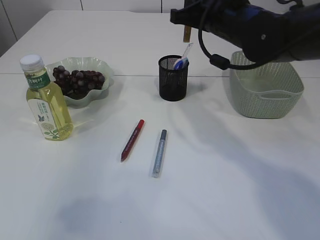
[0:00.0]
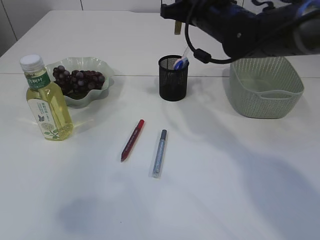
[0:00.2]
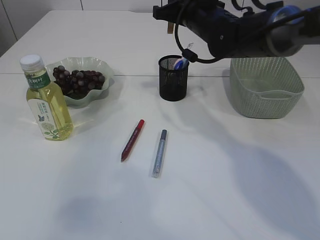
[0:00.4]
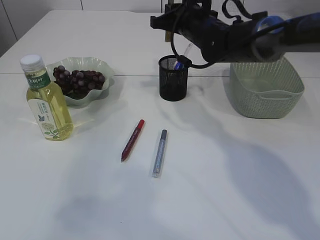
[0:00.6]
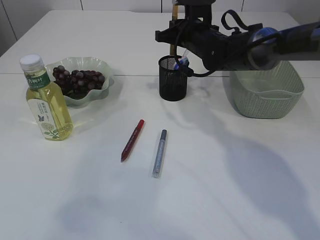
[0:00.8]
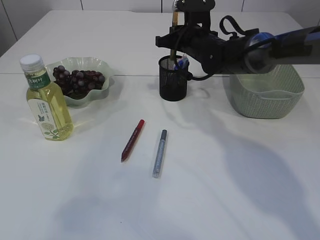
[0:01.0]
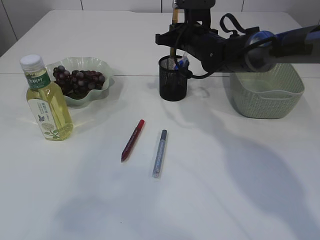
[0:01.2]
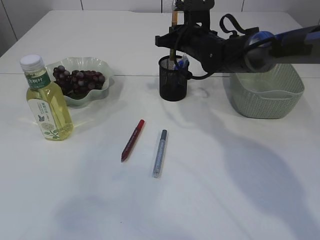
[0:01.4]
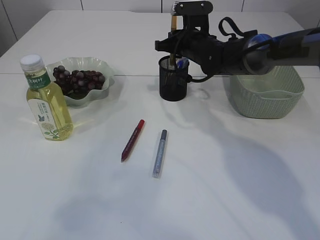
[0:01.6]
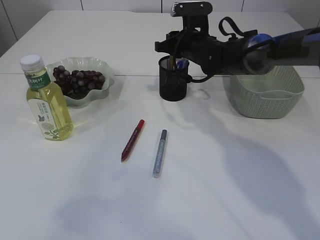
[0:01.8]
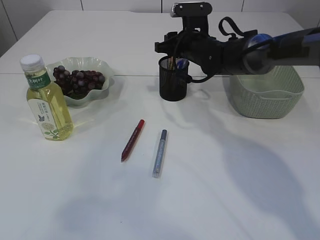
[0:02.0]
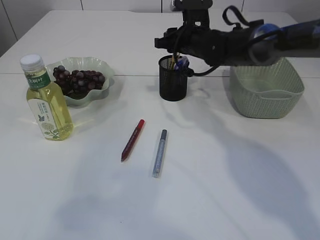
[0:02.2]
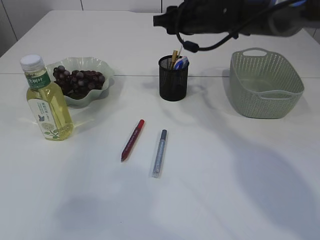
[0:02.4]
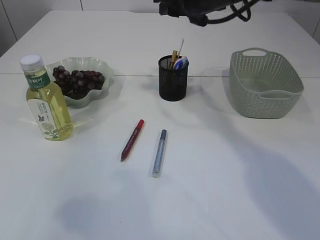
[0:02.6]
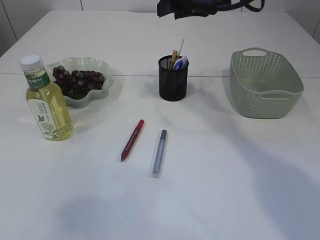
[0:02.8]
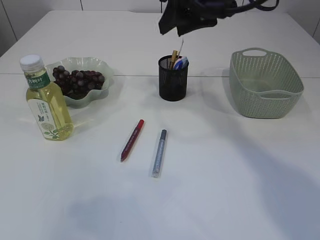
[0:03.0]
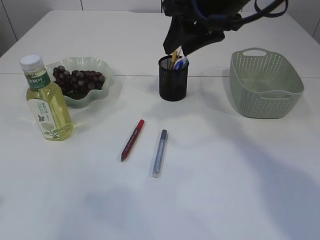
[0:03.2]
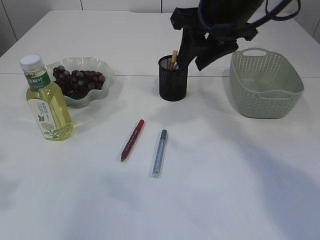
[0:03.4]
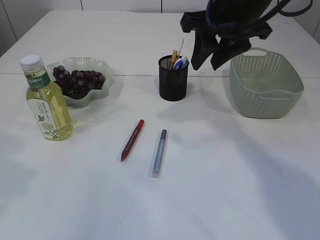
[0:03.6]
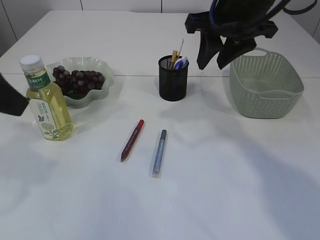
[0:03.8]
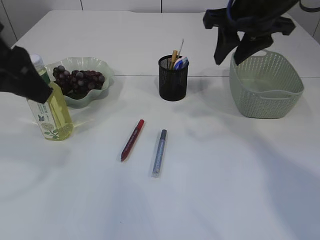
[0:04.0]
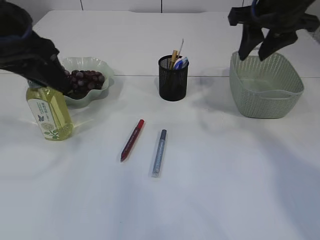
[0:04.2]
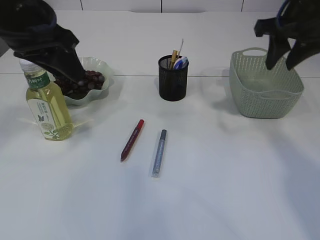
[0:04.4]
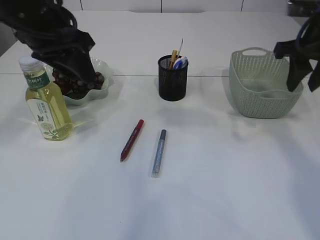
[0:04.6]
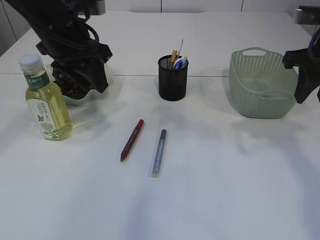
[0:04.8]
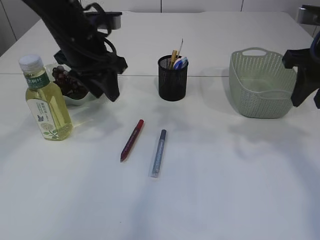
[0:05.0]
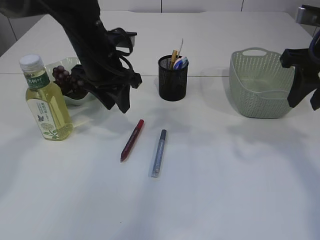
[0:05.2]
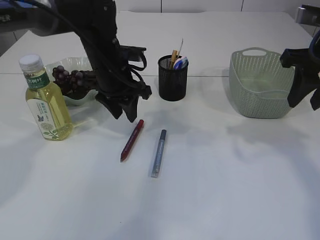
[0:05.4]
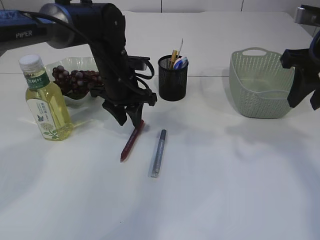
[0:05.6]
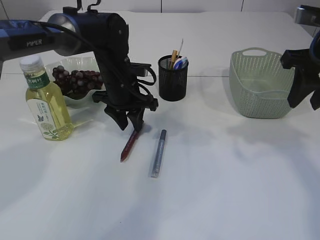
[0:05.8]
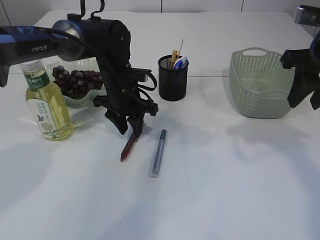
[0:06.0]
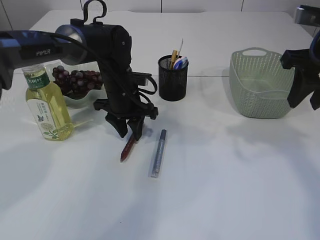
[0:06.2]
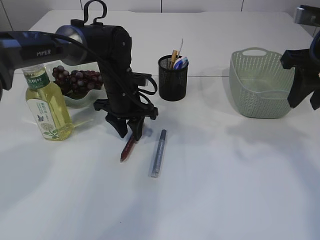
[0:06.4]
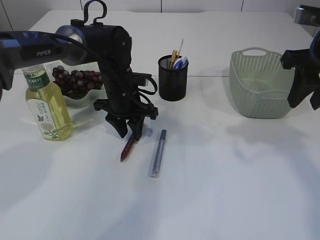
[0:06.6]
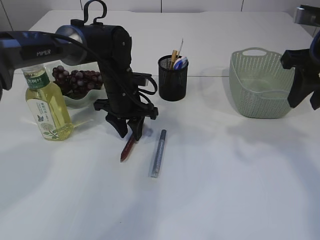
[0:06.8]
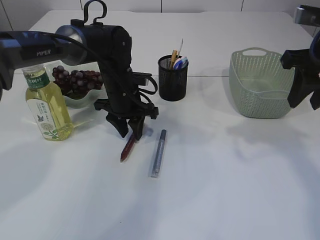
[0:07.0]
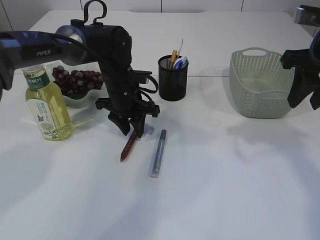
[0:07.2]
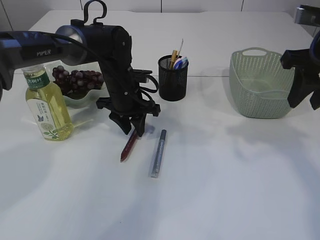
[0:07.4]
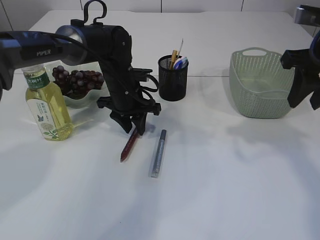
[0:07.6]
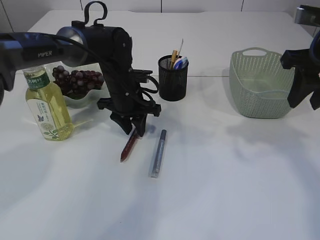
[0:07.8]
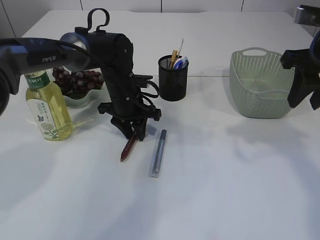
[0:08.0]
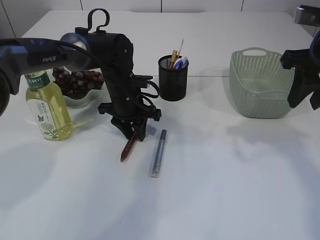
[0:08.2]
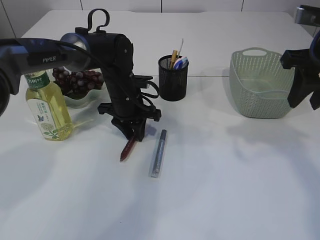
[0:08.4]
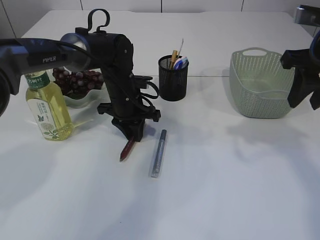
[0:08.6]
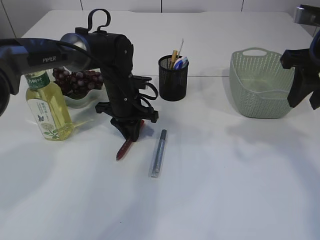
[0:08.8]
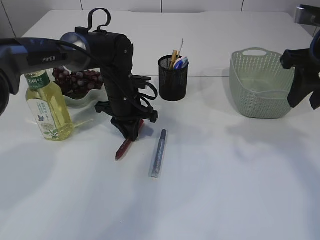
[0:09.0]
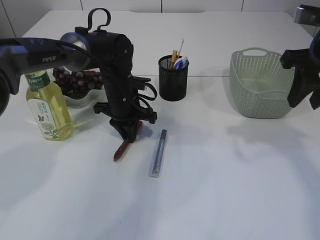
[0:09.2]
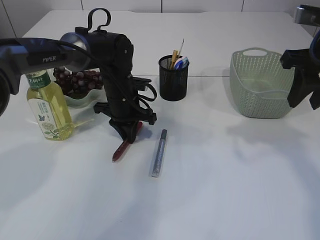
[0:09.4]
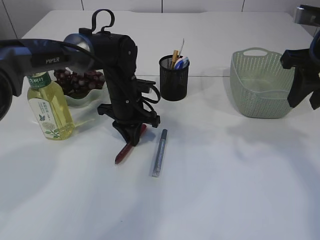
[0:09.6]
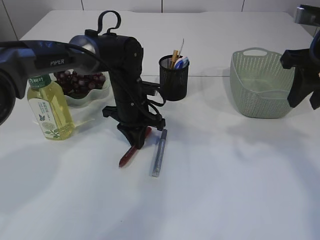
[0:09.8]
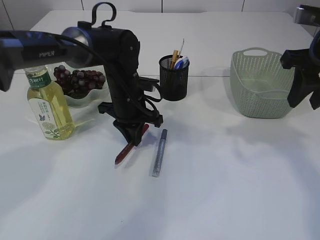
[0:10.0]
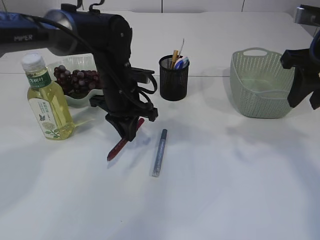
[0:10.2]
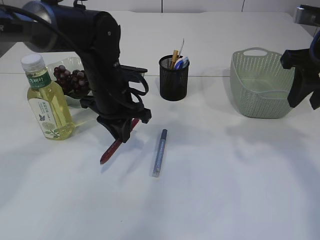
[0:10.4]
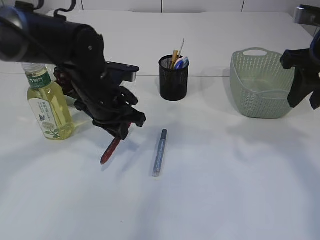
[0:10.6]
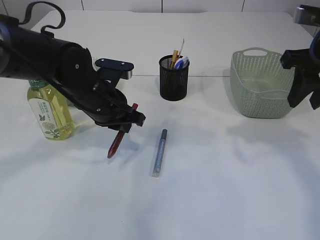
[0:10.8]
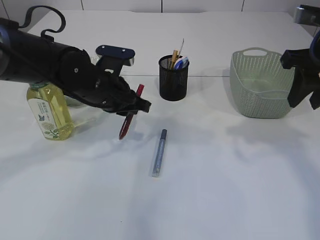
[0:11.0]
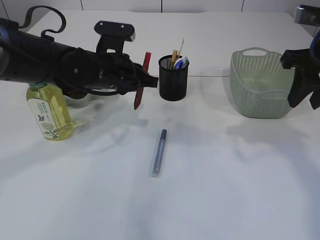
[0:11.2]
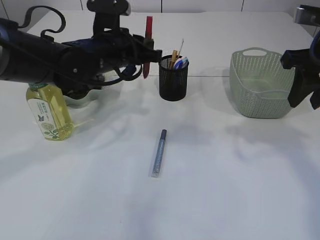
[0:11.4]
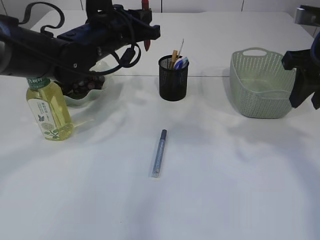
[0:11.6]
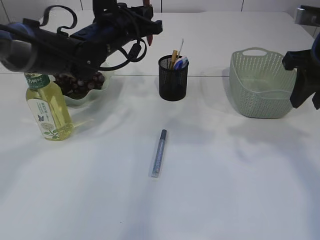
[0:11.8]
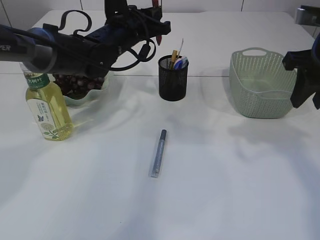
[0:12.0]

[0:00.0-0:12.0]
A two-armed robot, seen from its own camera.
Step, 0:00.0 to 0:02.2: place the yellow glue into the pen holder.
Step, 0:02.4 to 0:10.2: pick up the red glue.
0:00.0 to 0:01.6: The right gripper goes approximately 15 cm forward and downward.
0:01.6 to 0:03.0: The right gripper heads upward and backward, covering approximately 20 cm, and opens.
0:03.0 to 0:04.4: The right gripper goes roughly 15 cm to the right. The left gripper travels forward and to the right by some 25 cm.
0:04.4 to 0:06.0: The right gripper travels backward by about 5 cm. Meanwhile the left gripper travels downward, forward and to the right by roughly 25 cm.
0:06.0 to 0:07.6: Both grippers stay put.
0:07.6 to 0:09.0: The left gripper closes.
0:09.0 to 0:10.4: The left gripper goes roughly 10 cm upward and backward.
0:10.4 to 0:12.0: The left gripper is displaced forward and upward by roughly 10 cm.

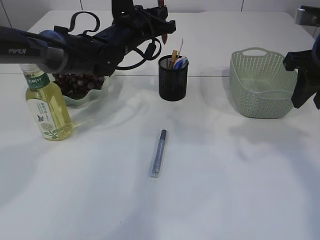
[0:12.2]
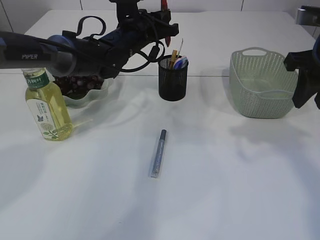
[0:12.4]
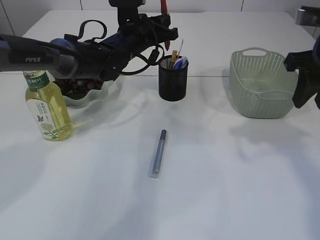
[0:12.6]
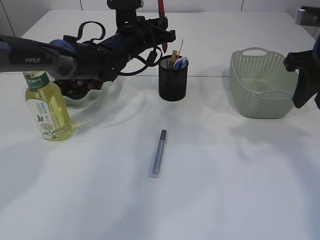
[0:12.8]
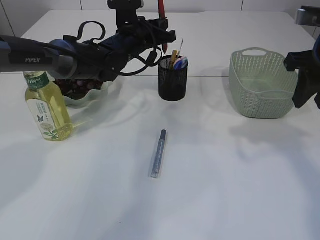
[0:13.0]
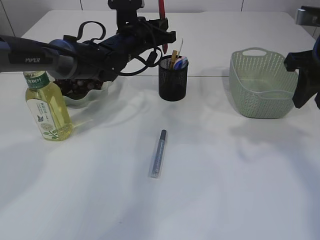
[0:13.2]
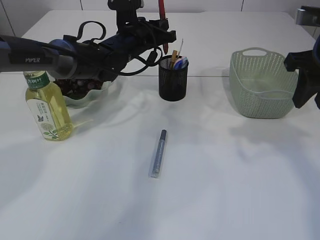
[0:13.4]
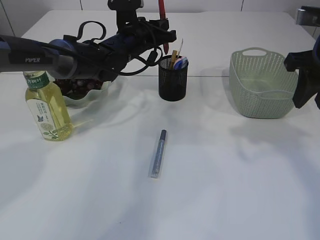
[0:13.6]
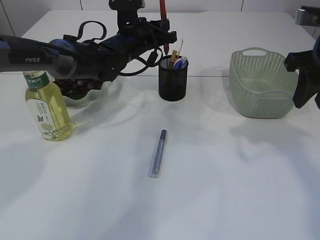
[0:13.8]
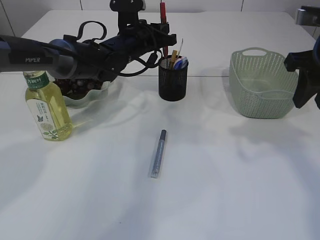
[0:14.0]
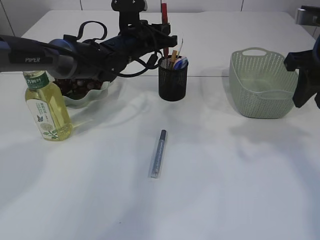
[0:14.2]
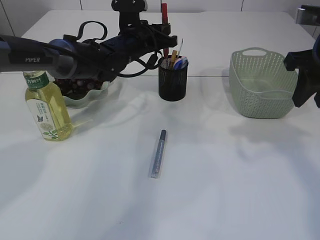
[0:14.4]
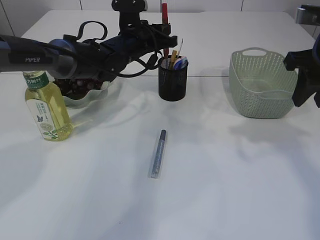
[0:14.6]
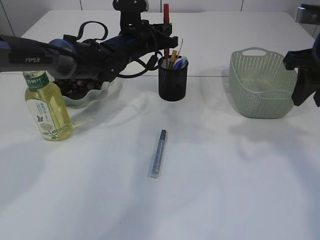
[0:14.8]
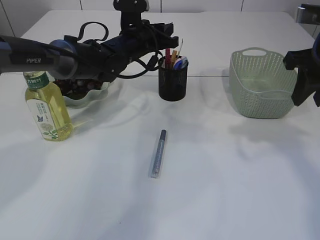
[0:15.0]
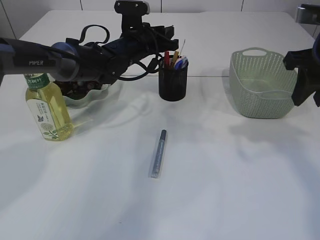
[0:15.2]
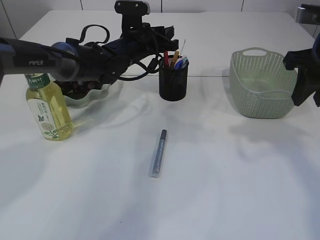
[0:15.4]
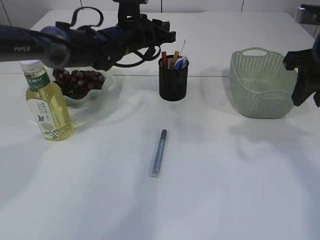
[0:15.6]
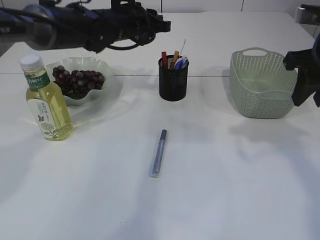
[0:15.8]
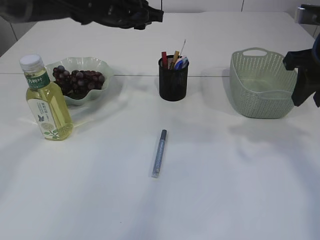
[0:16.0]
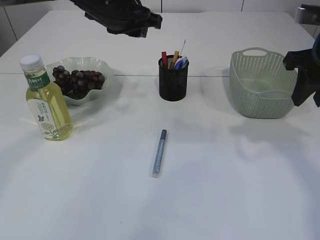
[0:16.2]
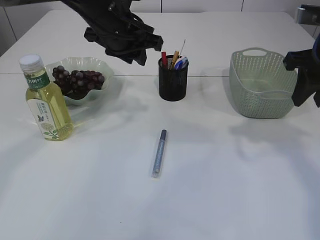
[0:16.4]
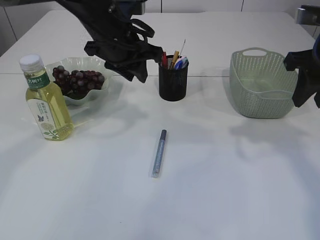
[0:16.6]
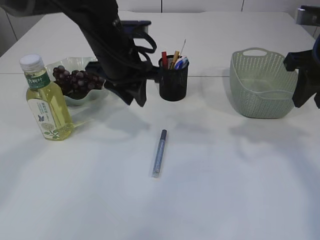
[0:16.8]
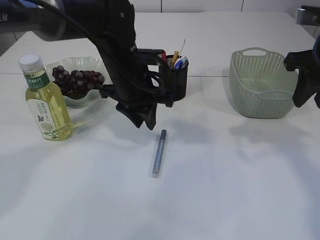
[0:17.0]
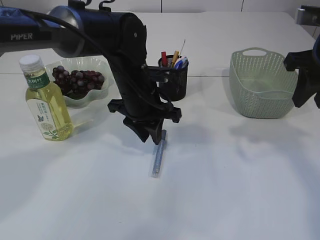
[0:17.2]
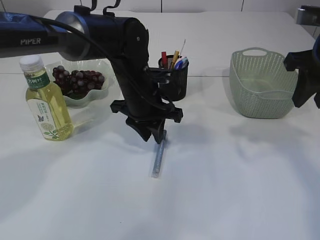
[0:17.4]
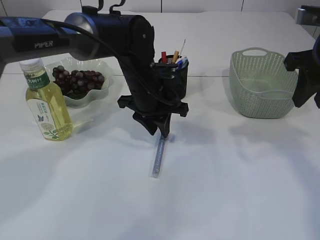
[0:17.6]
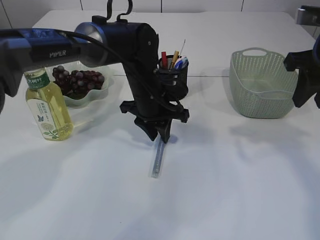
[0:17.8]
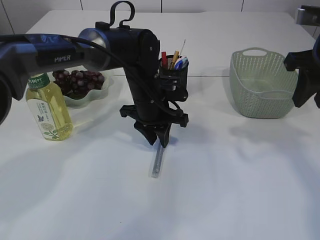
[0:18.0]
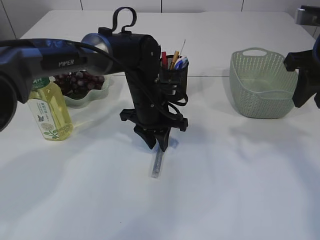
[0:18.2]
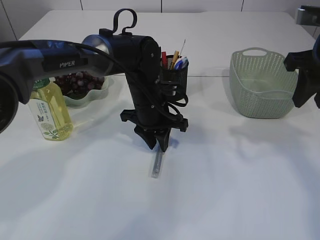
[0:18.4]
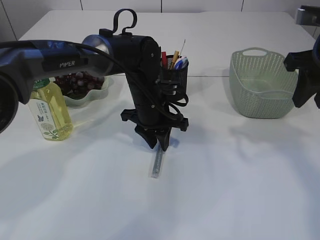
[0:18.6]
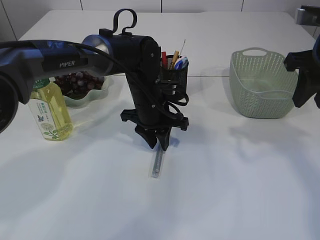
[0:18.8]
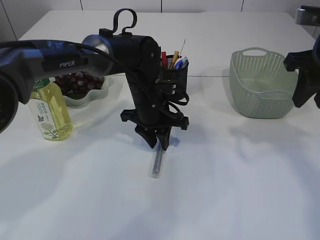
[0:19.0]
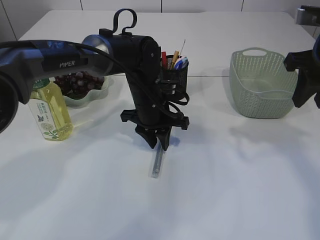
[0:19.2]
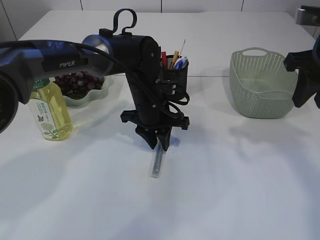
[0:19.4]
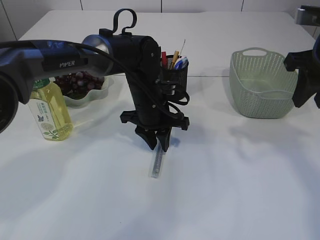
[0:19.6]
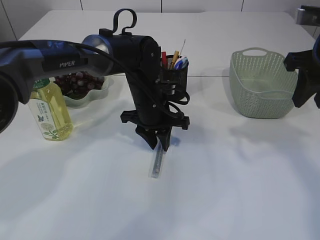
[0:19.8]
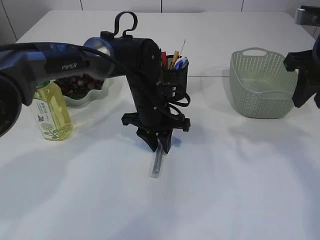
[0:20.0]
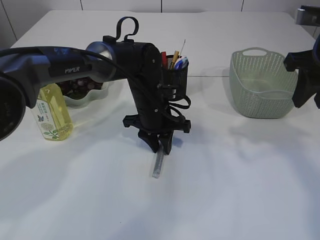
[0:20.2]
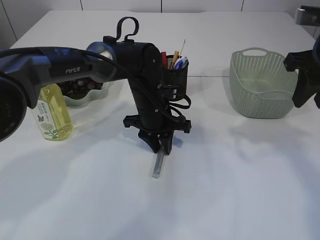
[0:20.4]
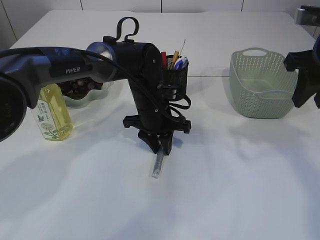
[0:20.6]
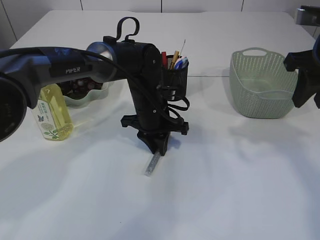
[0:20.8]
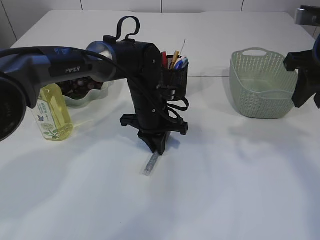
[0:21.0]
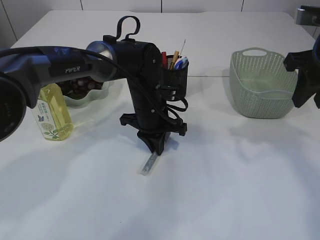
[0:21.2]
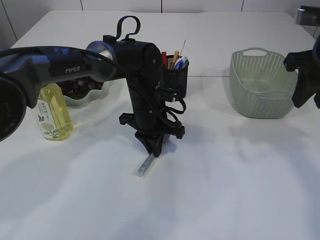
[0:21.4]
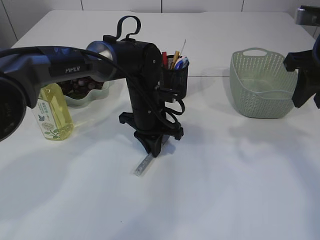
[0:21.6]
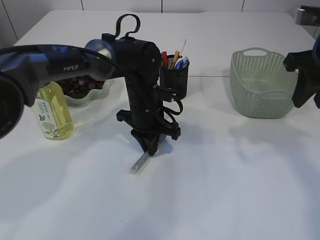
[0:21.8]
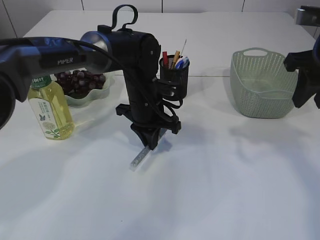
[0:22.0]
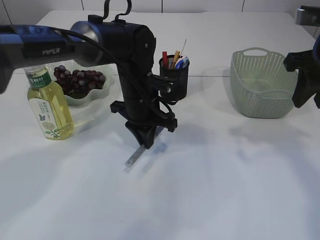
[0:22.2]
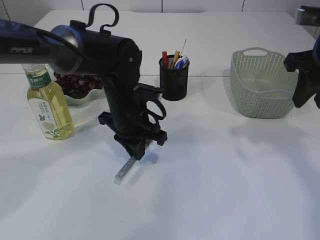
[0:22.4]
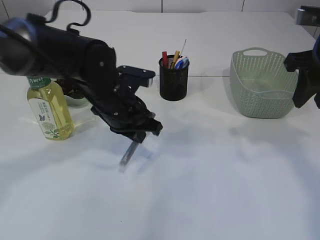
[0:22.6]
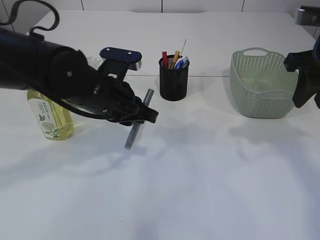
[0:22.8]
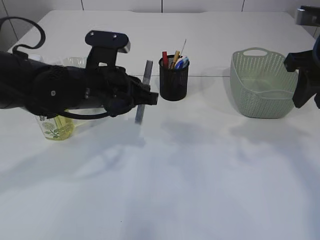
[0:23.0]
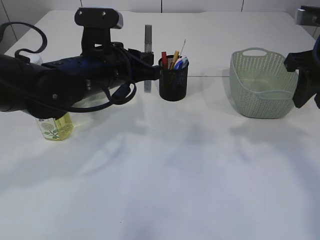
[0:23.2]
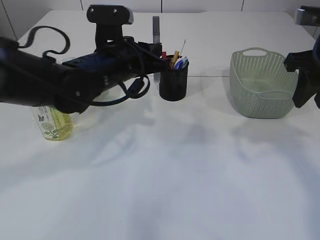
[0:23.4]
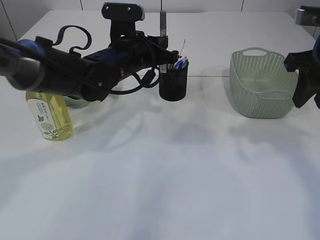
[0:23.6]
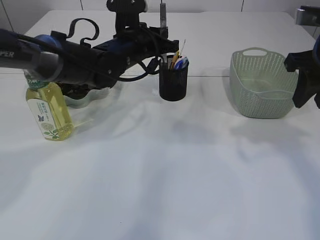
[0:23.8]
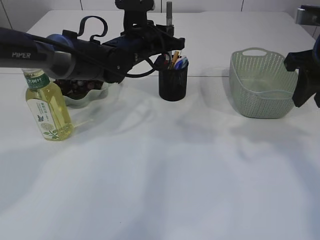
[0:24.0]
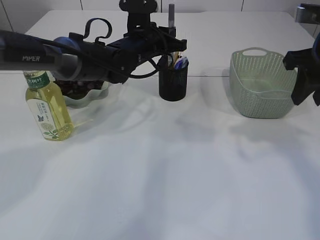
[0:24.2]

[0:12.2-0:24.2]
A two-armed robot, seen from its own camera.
Step, 0:12.2 to 0:15.4: place the red glue into the pen holder.
Step, 0:15.6 to 0:22.2: pick up the silver glue.
0:12.2 to 0:13.8: The grippers stay close to where they were, moving slightly.
0:13.8 to 0:15.2: The two grippers keep their place.
0:15.2 to 0:16.6: The left gripper travels backward and upward by some 15 cm.
0:16.6 to 0:18.2: The left gripper heads downward, covering roughly 15 cm.
0:18.2 to 0:19.8: The two grippers keep their place.
0:19.8 to 0:21.2: The left gripper closes its fingers.
0:21.2 to 0:22.6: The left gripper moves backward, some 5 cm.
0:22.6 to 0:24.2: The left gripper is displaced forward by roughly 10 cm.
